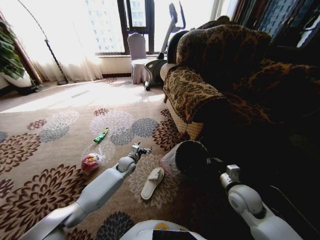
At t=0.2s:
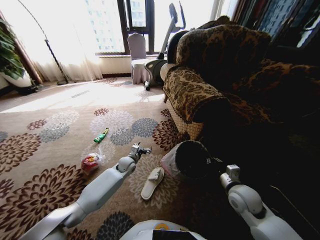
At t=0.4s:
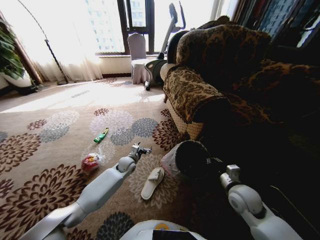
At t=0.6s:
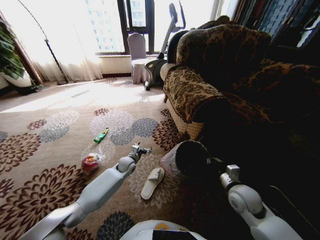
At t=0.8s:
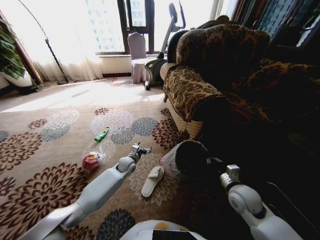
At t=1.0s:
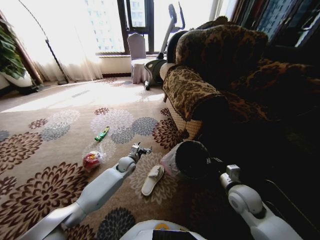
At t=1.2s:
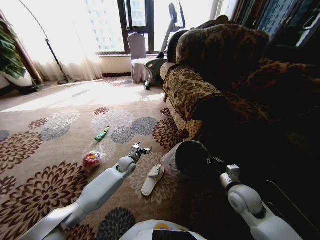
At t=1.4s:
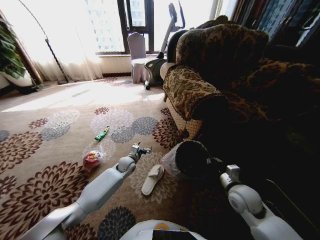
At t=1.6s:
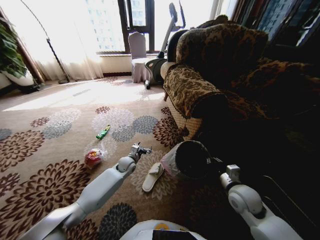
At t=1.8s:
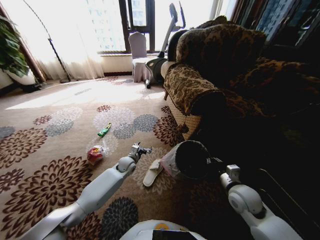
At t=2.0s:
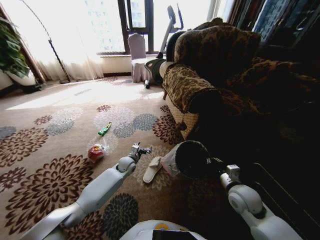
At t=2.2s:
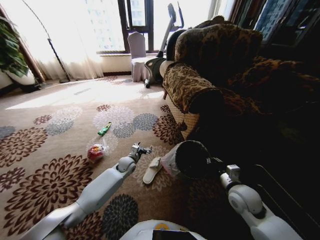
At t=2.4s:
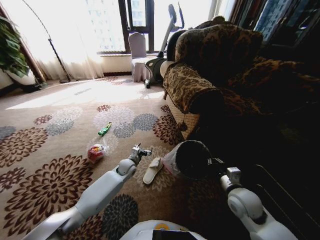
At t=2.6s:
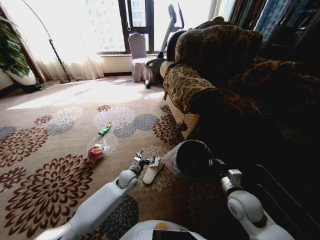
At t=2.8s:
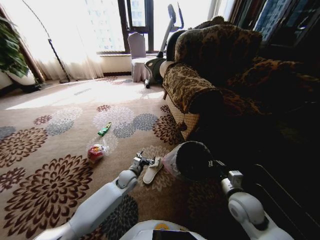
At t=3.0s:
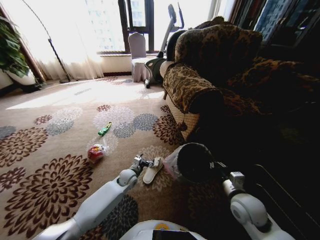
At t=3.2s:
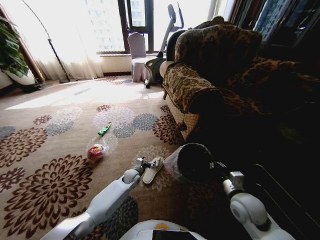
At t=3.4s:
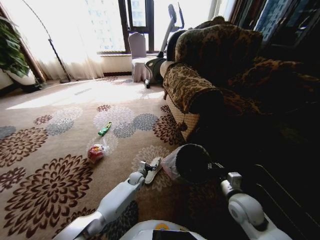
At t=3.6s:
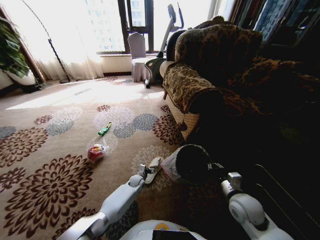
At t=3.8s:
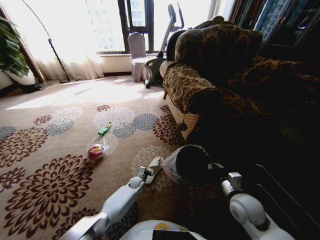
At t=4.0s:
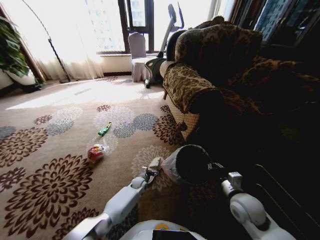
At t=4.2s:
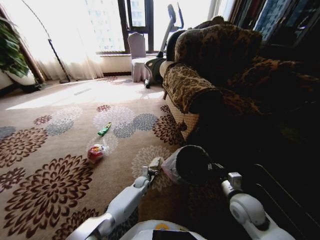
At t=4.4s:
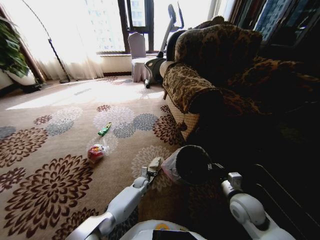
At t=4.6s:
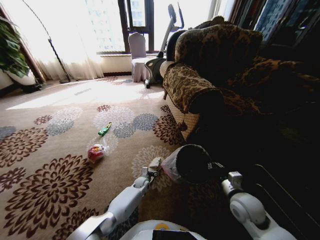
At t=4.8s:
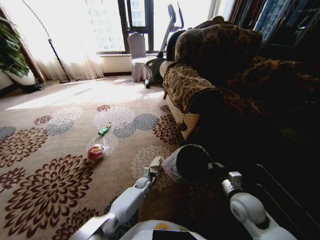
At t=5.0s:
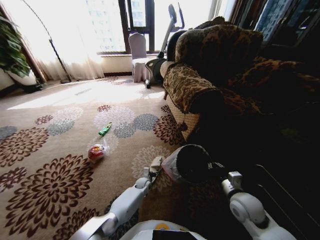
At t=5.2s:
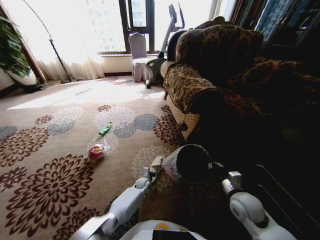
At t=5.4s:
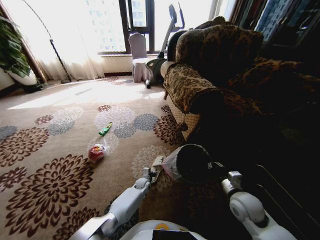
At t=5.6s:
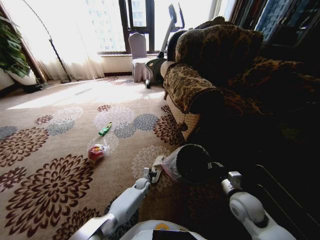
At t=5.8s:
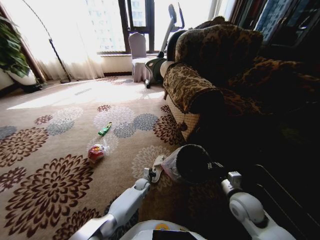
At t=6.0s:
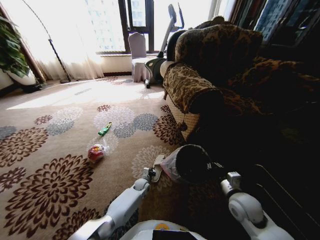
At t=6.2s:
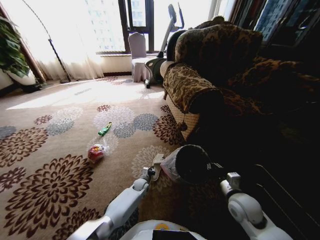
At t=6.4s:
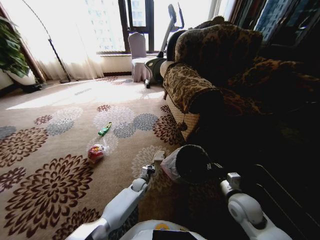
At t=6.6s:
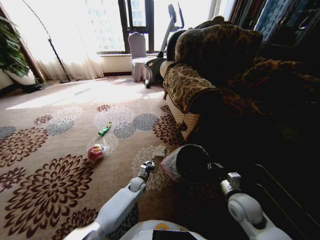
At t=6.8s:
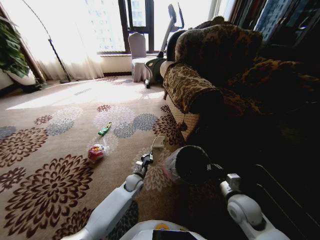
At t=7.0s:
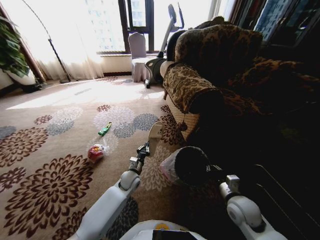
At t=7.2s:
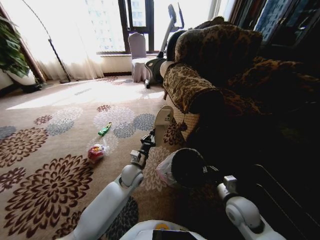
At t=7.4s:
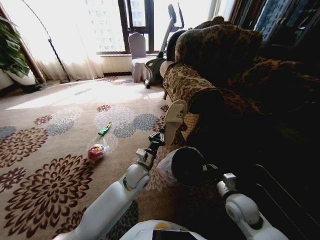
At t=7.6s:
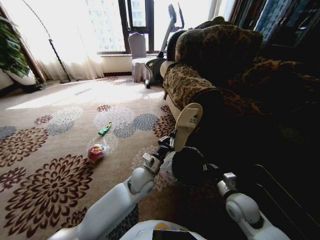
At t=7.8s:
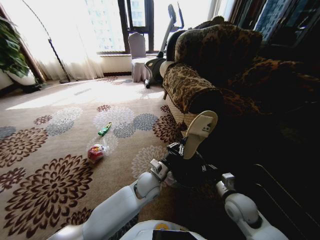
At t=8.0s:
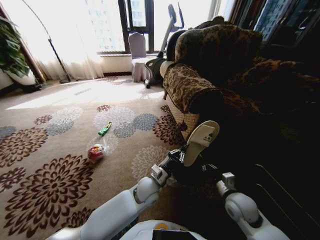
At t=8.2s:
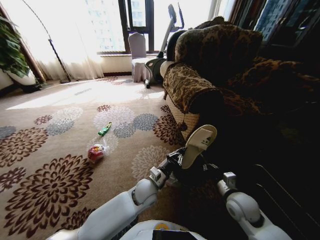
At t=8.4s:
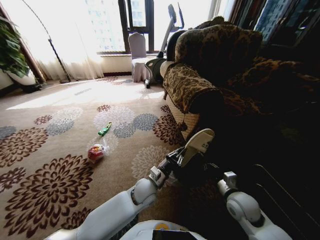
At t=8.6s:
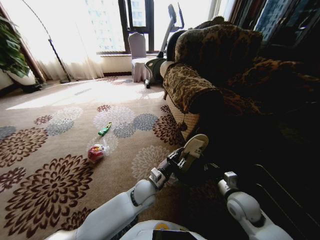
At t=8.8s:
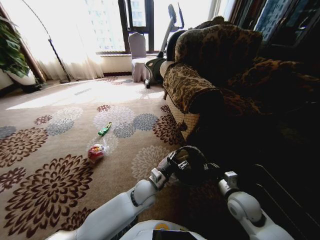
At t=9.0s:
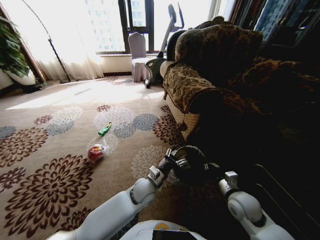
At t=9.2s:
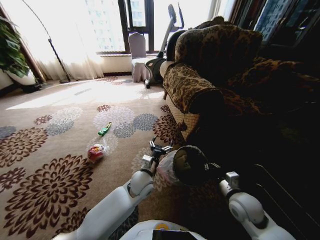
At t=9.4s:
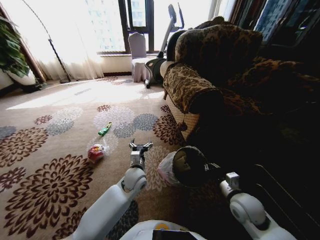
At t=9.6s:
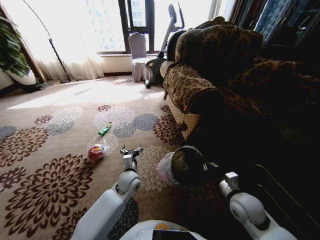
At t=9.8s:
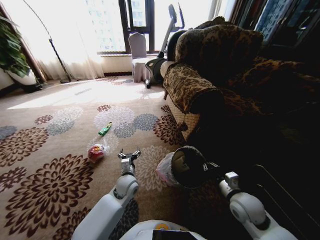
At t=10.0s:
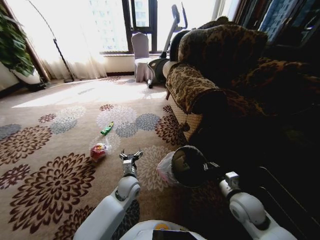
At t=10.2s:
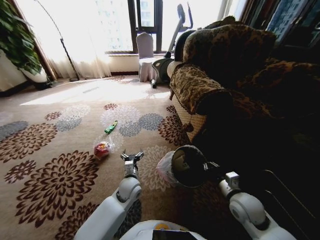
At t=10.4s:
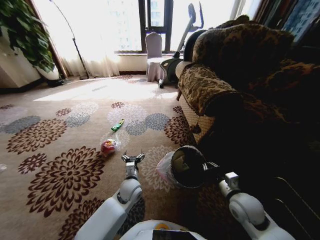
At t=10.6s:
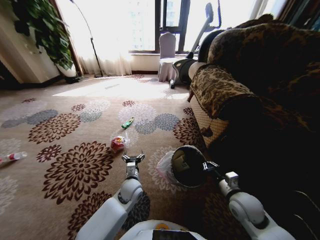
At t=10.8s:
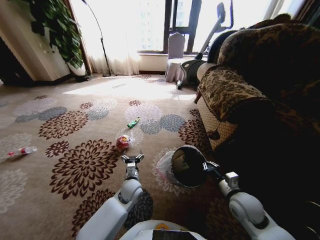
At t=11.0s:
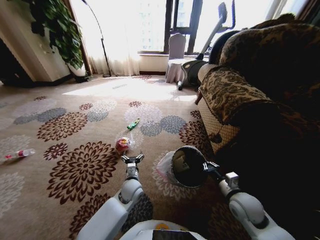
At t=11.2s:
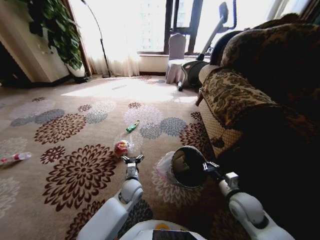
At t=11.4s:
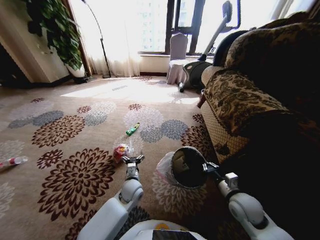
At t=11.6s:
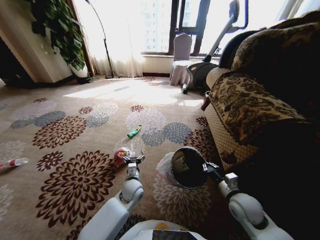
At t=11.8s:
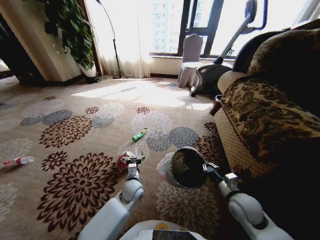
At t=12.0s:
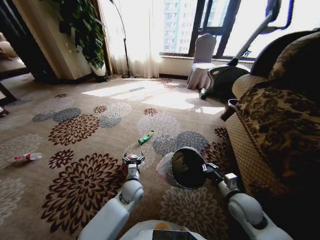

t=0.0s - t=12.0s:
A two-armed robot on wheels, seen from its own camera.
Task of the whole recording: Pick up the trash from the ground and place it into the trash bin.
t=0.0s - t=1.6s: Neither gripper changes place.
t=1.6s - t=3.0s: The left gripper travels backward by roughly 5 cm.
t=3.0s - t=4.4s: The left gripper goes approximately 15 cm downward and to the right.
t=4.4s - t=6.0s: The left gripper closes its fingers.
t=6.0s - t=7.6s: The left gripper moves upward, approximately 25 cm.
t=7.6s - t=9.0s: The left gripper ends up some 5 cm from where it was, and opens.
t=9.0s - t=10.4s: The left gripper travels to the left by approximately 5 cm.

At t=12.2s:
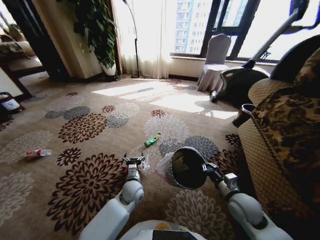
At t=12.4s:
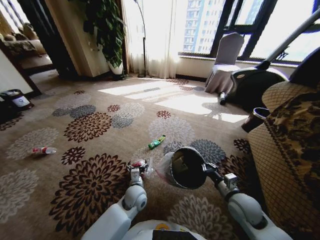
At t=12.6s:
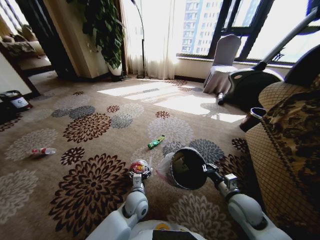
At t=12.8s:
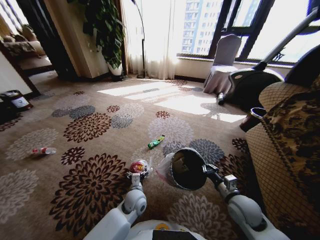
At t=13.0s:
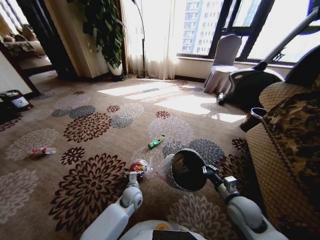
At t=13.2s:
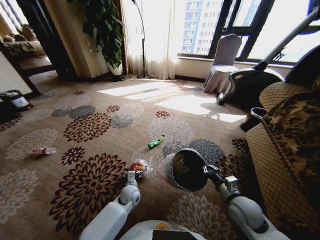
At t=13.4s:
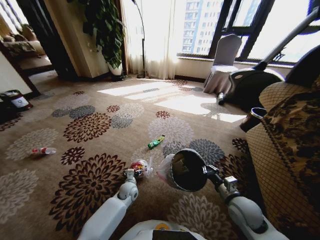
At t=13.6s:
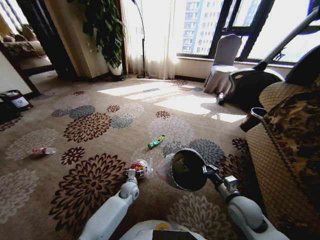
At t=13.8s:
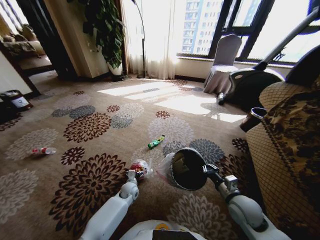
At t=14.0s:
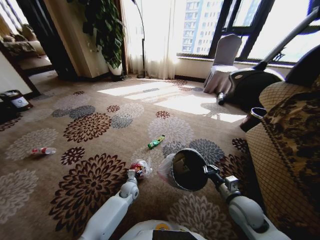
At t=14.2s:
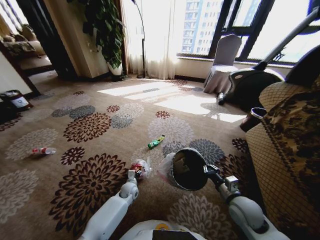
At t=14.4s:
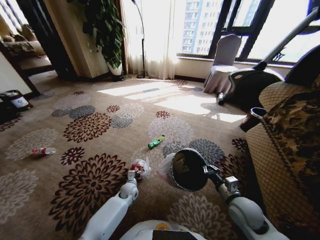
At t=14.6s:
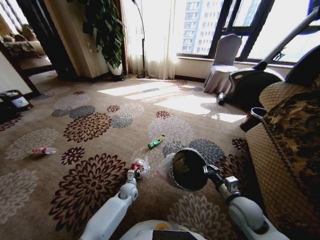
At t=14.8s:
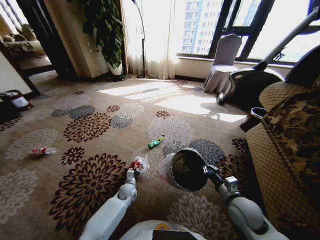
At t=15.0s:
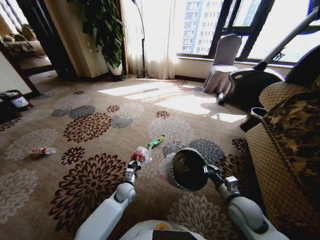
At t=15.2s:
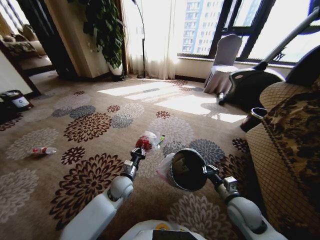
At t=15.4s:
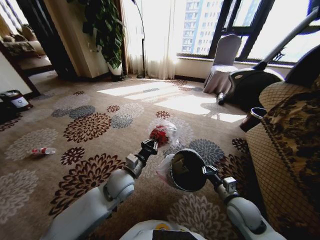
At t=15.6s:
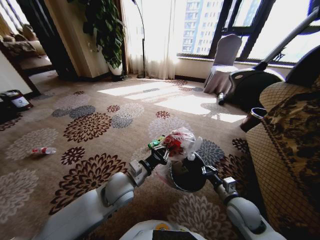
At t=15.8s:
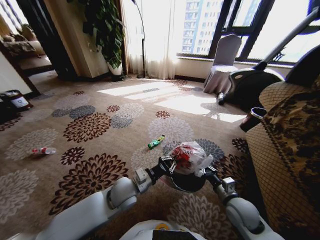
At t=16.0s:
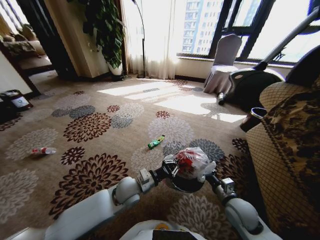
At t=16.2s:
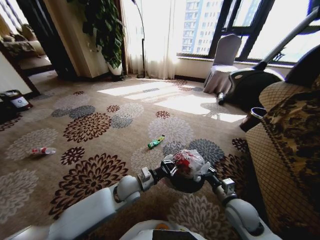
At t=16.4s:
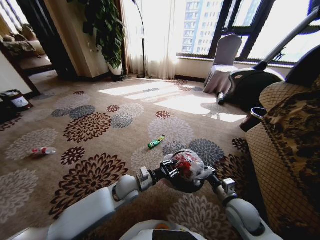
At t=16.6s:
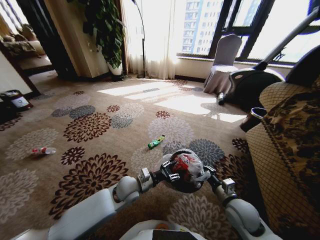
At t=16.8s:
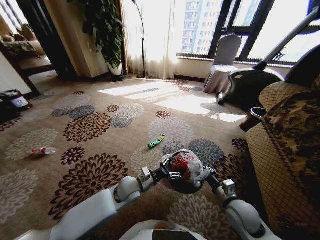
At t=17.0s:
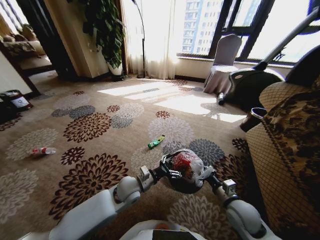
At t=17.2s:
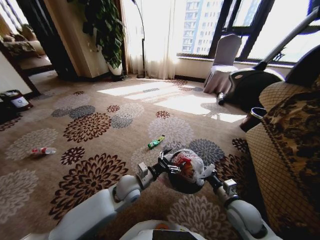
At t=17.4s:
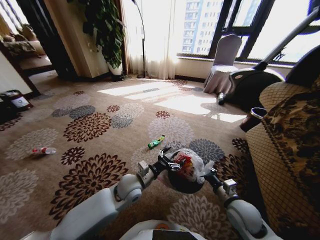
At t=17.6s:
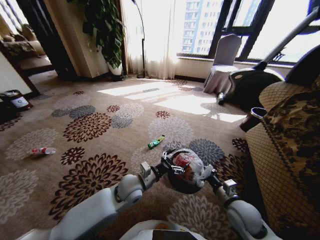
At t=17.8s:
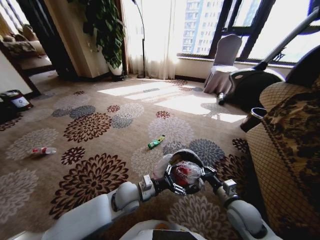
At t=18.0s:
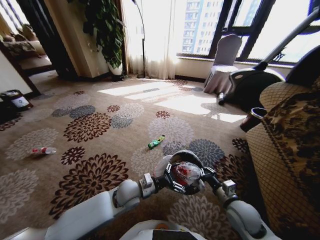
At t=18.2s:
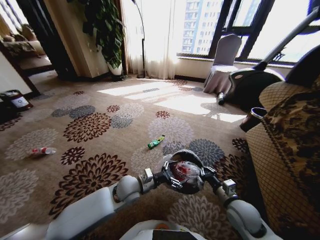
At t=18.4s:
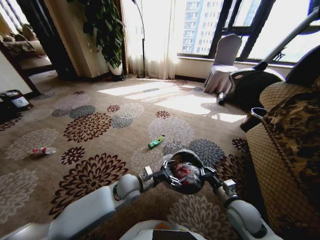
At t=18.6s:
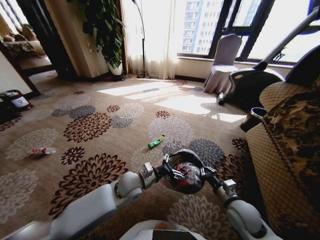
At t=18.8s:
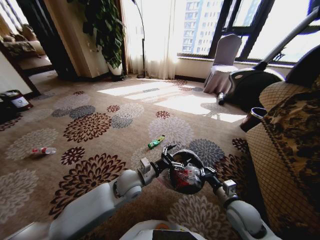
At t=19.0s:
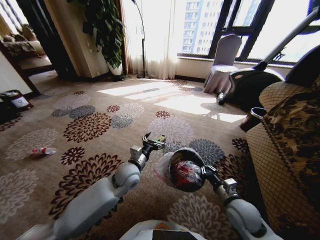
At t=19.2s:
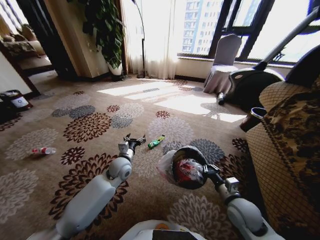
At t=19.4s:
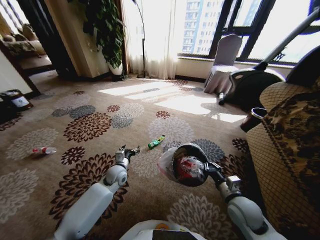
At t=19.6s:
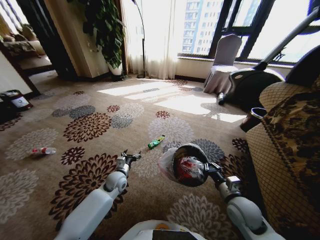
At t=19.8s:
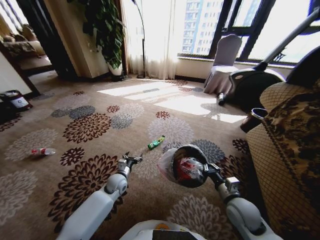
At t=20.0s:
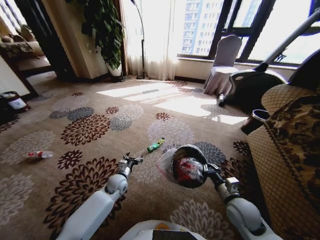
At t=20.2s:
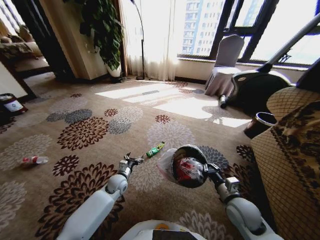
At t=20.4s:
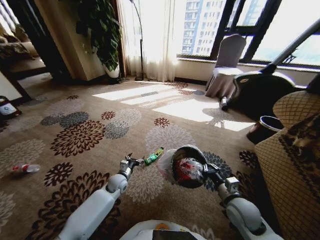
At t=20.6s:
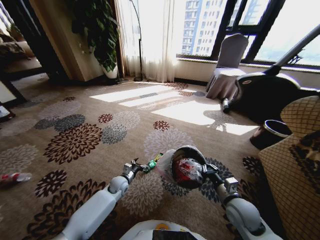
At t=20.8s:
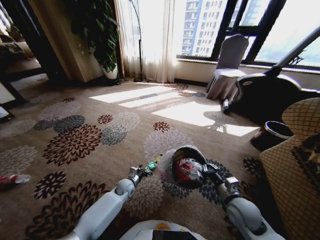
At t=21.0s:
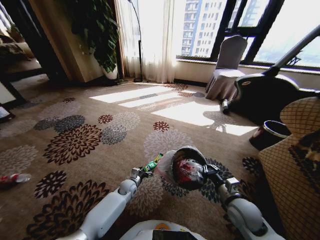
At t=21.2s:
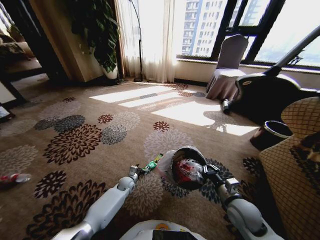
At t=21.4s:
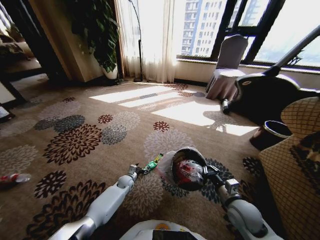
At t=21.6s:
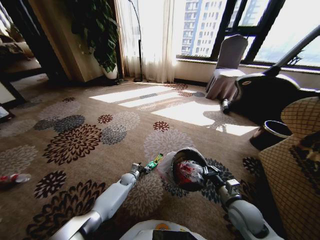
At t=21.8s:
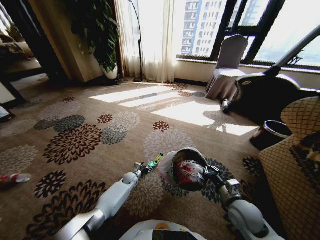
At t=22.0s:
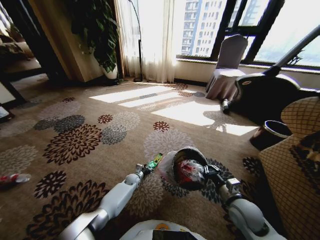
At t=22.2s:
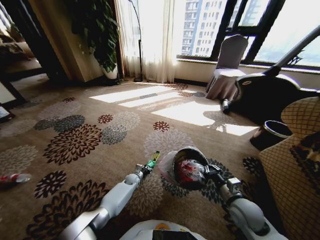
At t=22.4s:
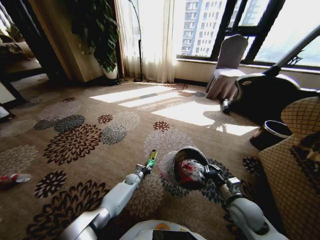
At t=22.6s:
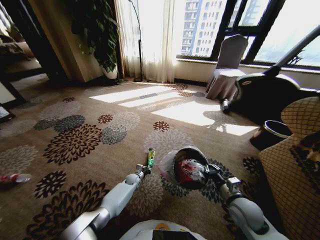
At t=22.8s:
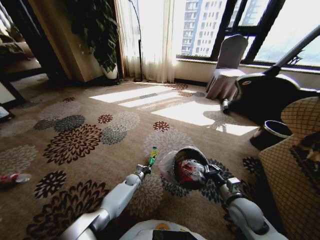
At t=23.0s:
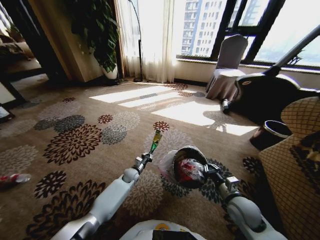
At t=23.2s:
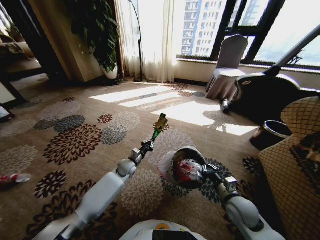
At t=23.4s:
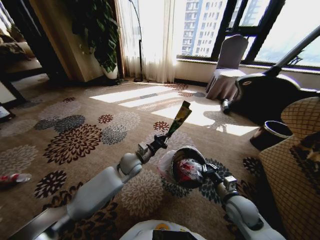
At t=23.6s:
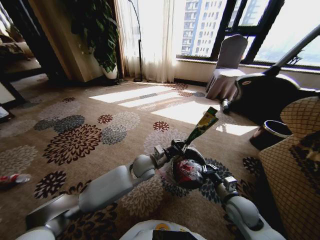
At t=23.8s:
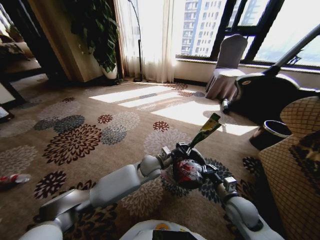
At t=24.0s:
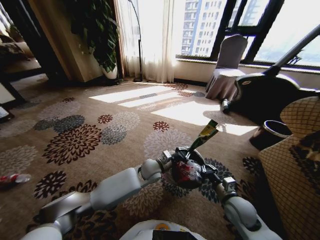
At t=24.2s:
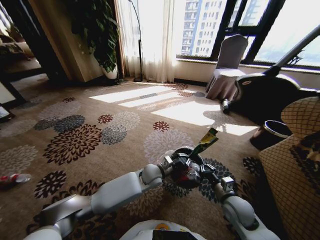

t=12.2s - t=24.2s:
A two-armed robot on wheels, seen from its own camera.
Task of the whole recording: Pick up the trash from the ground and place it into the trash bin.
t=12.2s - t=13.8s: The left gripper moves downward, roughly 10 cm.
t=13.8s - t=15.2s: The left gripper shifts about 15 cm upward, and closes up.
t=15.2s - t=16.6s: The left gripper moves approximately 10 cm upward and comes back, and opens.
t=16.6s - t=18.2s: The left gripper opens.
t=18.2s - t=19.8s: The left gripper moves downward, to the left and forward, about 15 cm.
t=19.8s - t=21.2s: The left gripper travels downward by approximately 10 cm.
t=21.2s - t=22.6s: The left gripper ends up approximately 5 cm from where it was, and closes.
t=22.6s - t=24.2s: The left gripper heads upward and to the right, covering some 30 cm.
